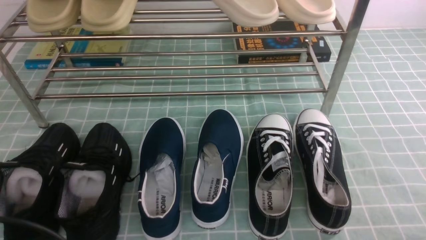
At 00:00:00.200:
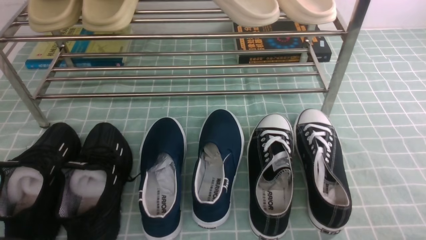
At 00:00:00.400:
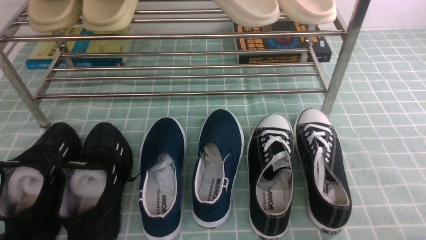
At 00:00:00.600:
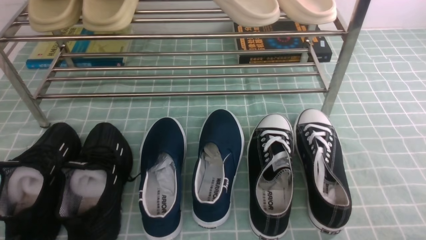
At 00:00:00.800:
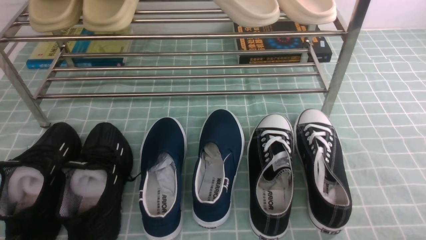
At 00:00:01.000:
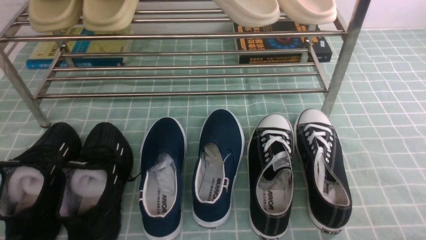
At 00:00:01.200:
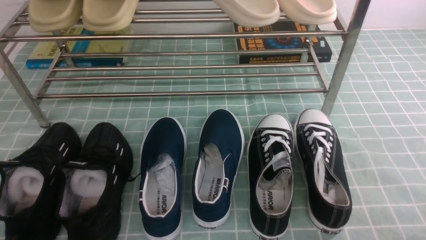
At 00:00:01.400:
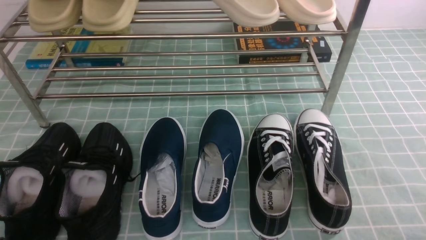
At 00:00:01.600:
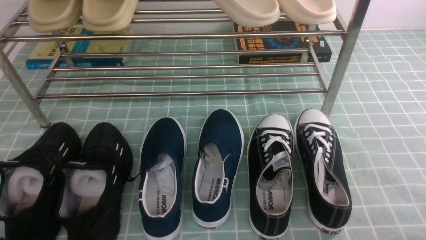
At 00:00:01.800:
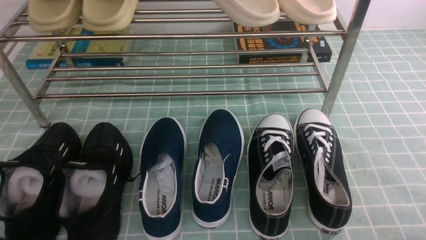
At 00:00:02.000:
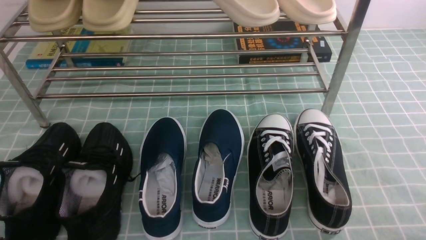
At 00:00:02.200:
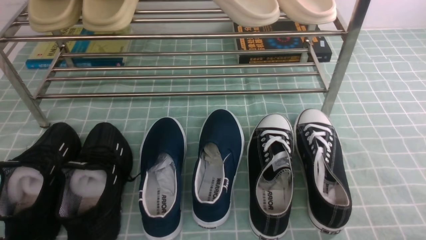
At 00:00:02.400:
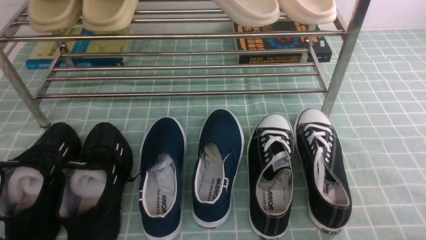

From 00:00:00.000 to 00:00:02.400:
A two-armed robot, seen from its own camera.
From 00:00:00.000 to 00:00:01.200: The left gripper goes approximately 10 cm downward.
From 00:00:01.200 to 00:00:02.400: Neither gripper changes place.
